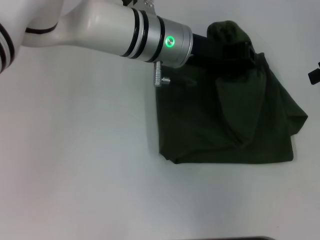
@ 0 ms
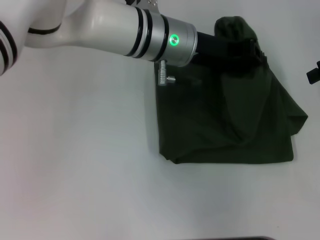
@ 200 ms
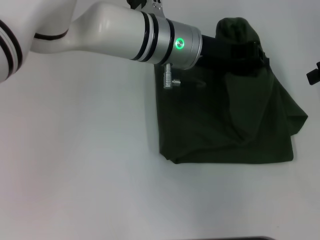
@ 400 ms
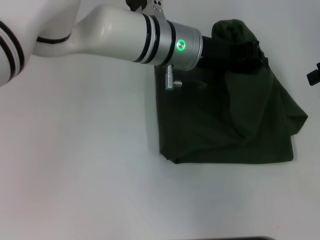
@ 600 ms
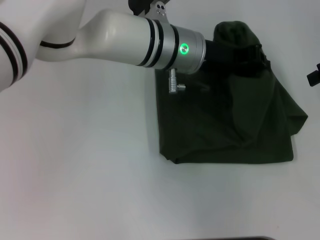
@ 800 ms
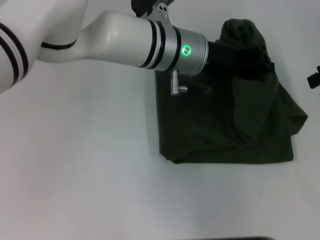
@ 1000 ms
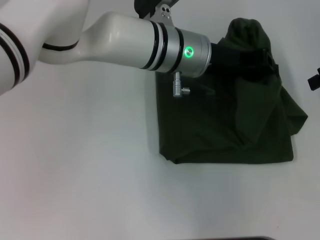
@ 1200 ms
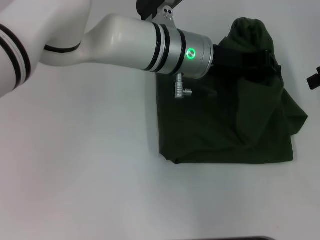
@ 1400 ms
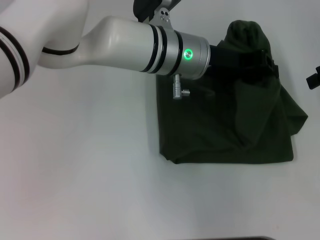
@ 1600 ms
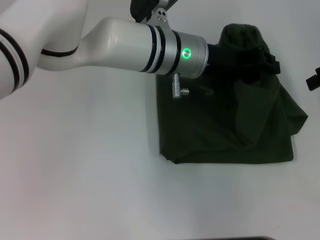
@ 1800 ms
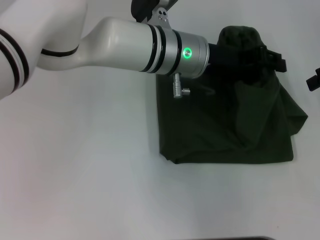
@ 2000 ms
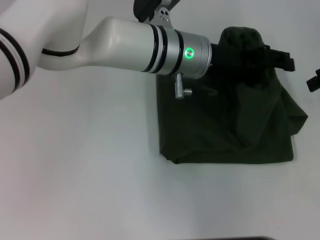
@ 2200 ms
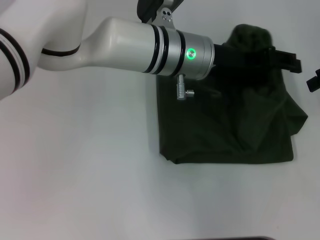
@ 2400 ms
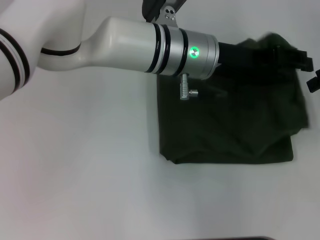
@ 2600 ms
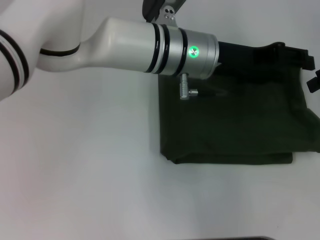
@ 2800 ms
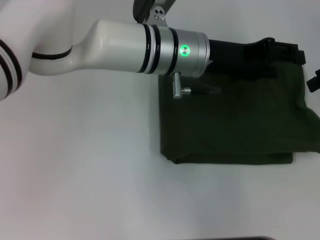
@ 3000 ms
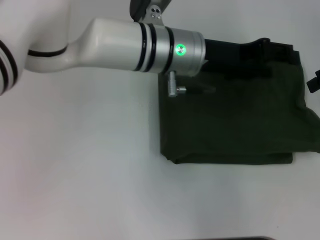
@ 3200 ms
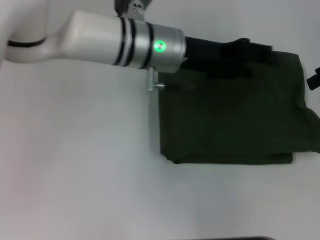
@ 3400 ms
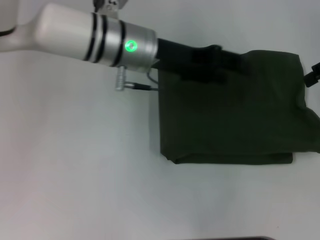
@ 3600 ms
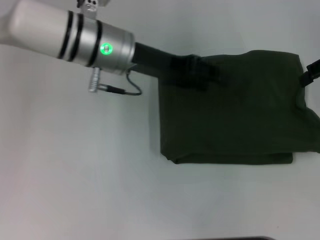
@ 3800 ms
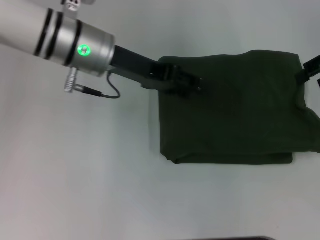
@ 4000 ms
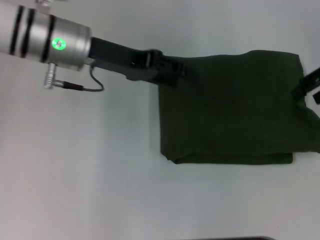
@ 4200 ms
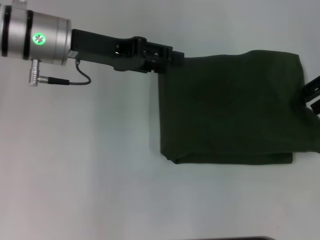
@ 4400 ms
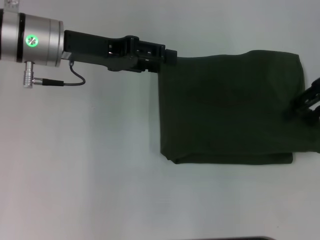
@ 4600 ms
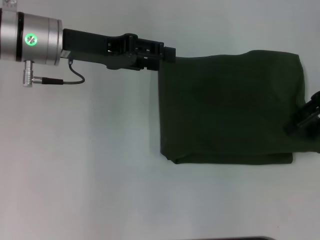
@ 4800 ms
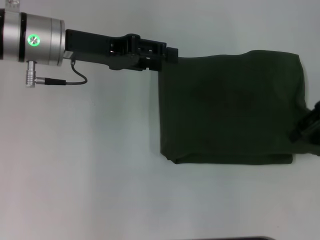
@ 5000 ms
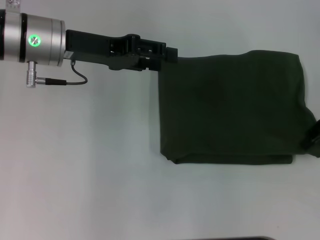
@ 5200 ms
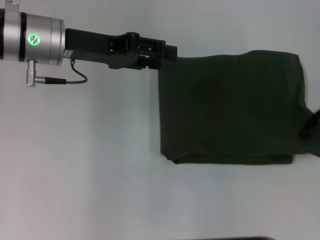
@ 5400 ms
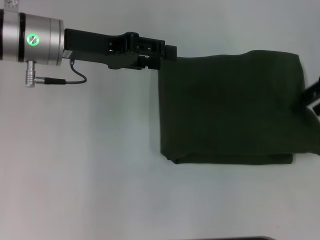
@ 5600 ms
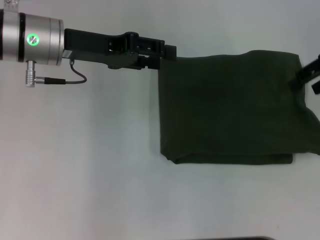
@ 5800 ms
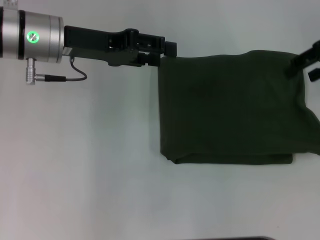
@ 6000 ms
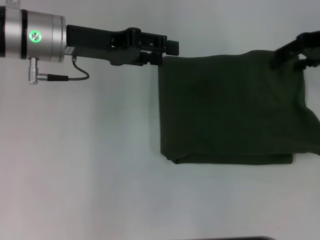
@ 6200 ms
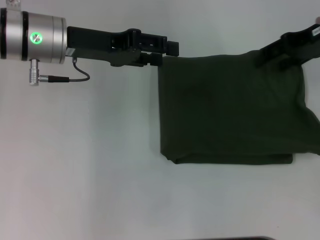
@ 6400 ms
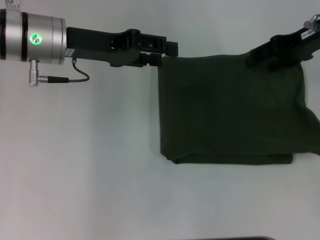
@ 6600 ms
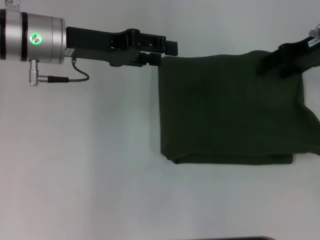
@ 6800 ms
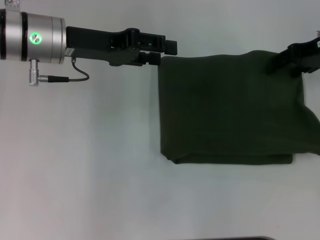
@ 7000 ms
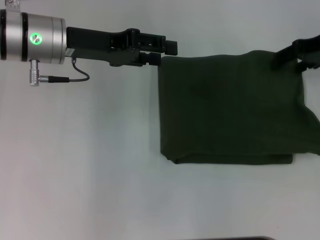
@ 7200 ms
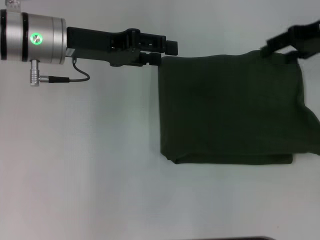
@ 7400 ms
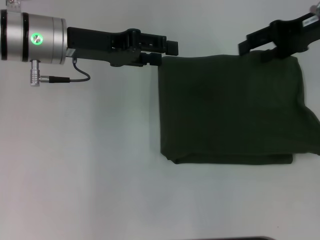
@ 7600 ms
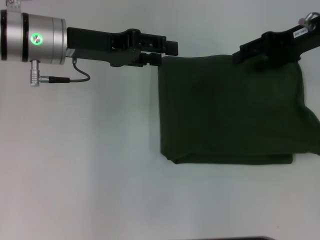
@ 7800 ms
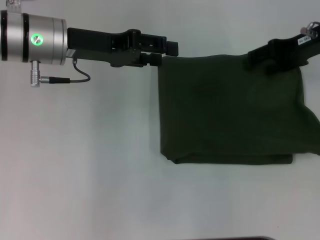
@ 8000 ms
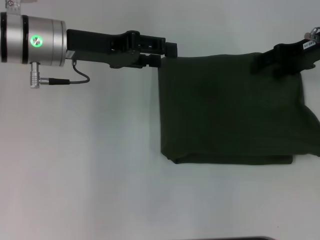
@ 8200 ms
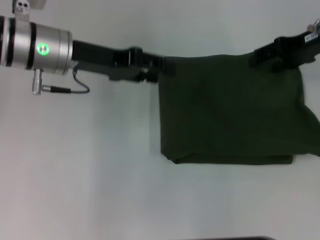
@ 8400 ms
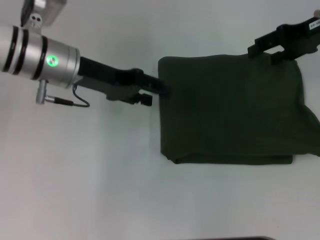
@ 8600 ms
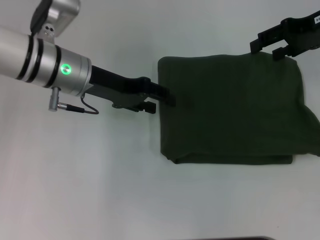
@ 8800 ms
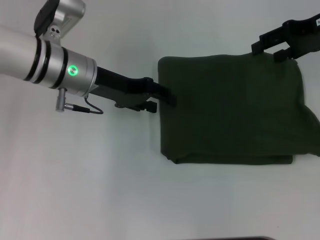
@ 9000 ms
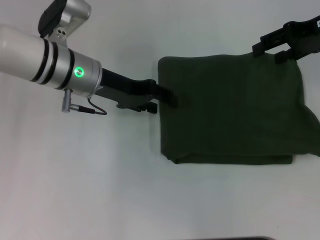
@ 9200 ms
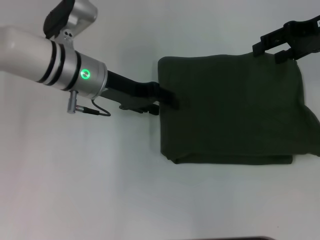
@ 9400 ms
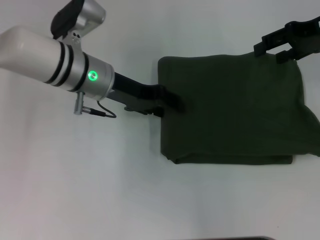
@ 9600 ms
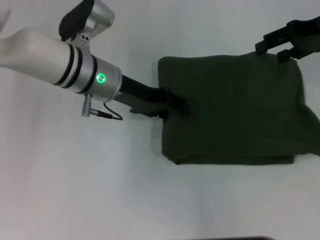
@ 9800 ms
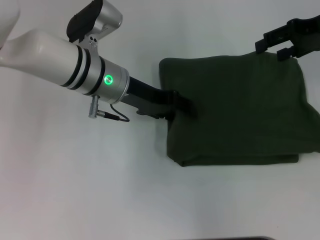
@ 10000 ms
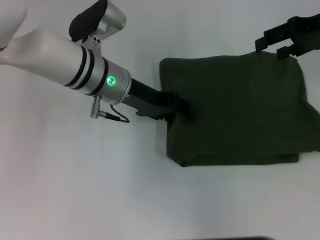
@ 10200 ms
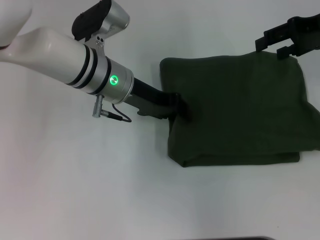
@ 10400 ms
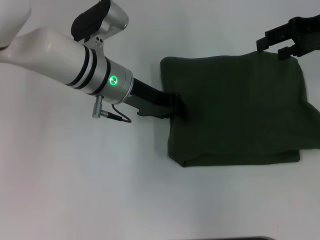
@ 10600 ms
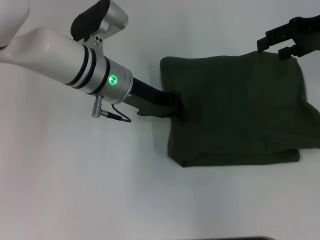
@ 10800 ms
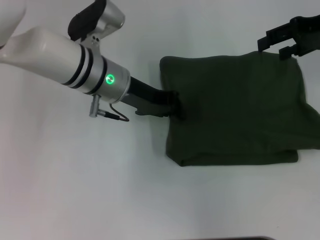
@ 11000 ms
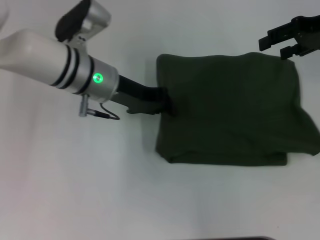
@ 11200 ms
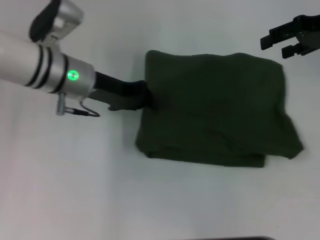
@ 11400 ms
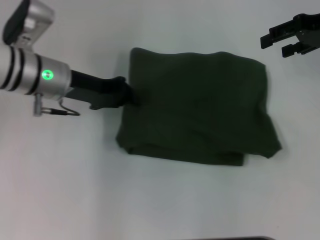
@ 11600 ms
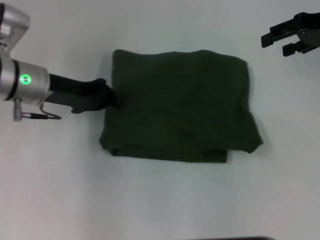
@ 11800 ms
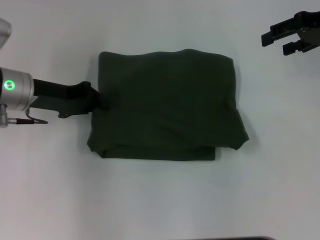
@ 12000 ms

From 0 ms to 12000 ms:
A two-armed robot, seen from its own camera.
Step, from 0 ms to 3000 ms: Fold the clothes with your left hand.
From 0 ms to 1600 ms: The grippers stay close to where they were, moving slightly.
From 1600 ms to 3000 ms: The left gripper opens its fingers.
From 3000 ms to 4400 ms: The left gripper heads to the left, covering approximately 15 cm.
From 4400 ms to 6000 ms: The grippers stay close to where they were, moving slightly.
From 6000 ms to 7600 ms: The grippers stay close to where they were, moving slightly.
From 7600 ms to 9000 ms: The left gripper moves roughly 5 cm.
From 9000 ms to 10400 ms: The left gripper moves to the right, about 5 cm.
From 10400 ms to 12000 ms: The left gripper travels to the left by about 15 cm, and closes its fingers.

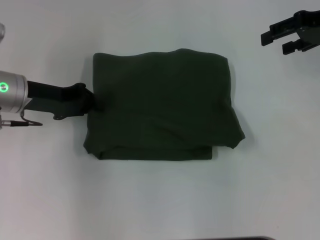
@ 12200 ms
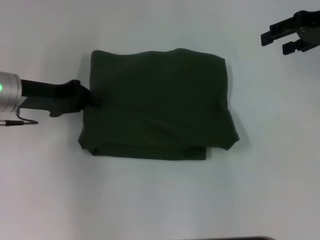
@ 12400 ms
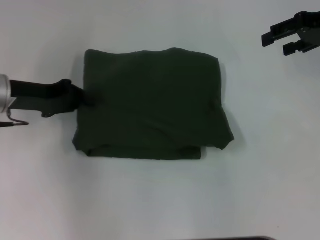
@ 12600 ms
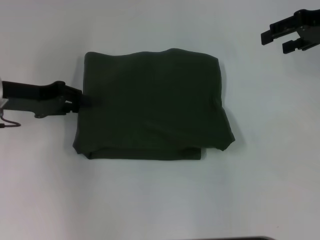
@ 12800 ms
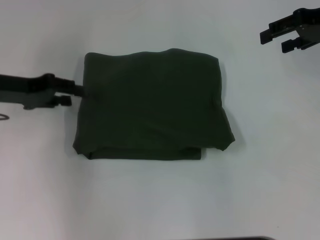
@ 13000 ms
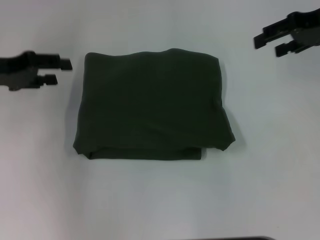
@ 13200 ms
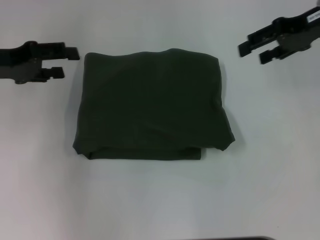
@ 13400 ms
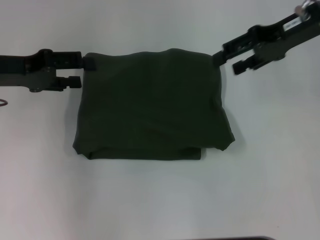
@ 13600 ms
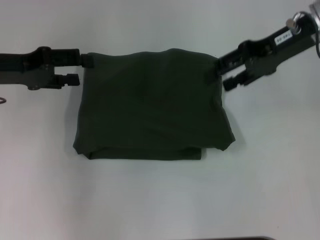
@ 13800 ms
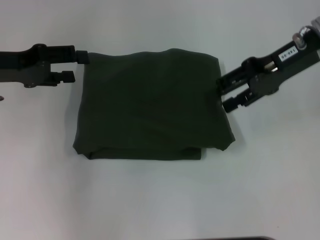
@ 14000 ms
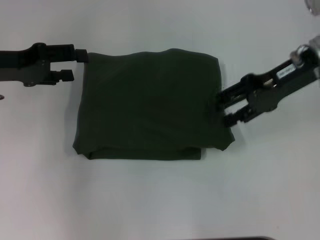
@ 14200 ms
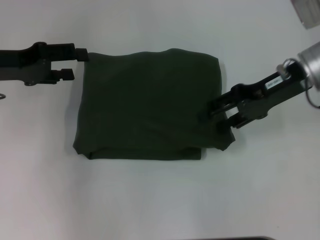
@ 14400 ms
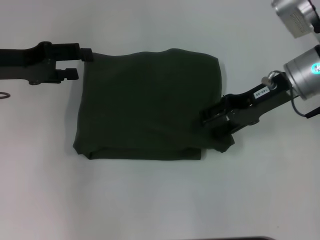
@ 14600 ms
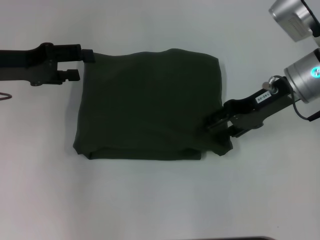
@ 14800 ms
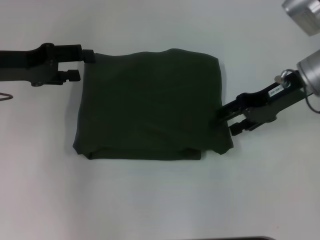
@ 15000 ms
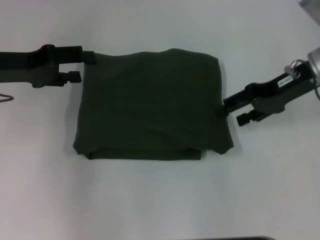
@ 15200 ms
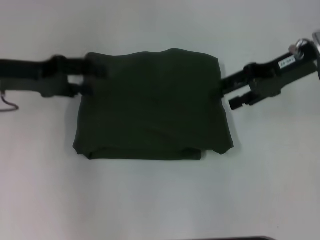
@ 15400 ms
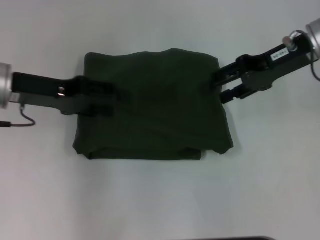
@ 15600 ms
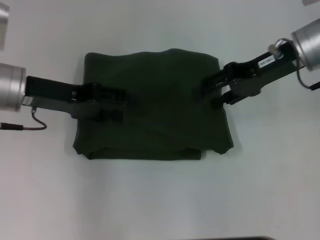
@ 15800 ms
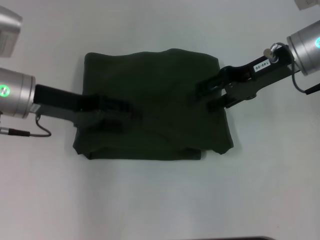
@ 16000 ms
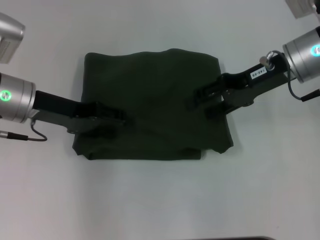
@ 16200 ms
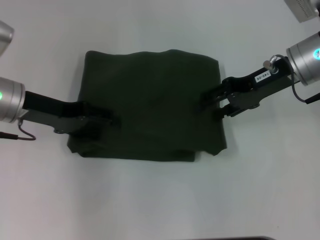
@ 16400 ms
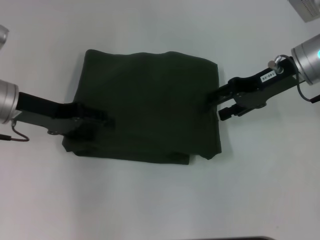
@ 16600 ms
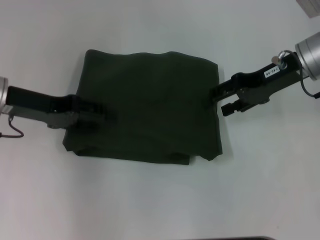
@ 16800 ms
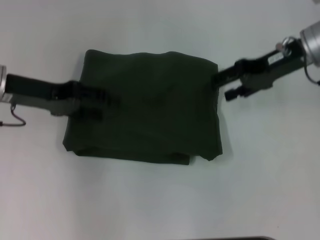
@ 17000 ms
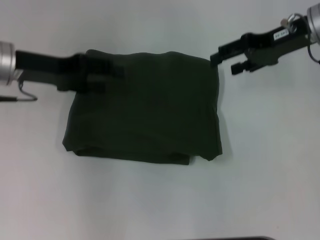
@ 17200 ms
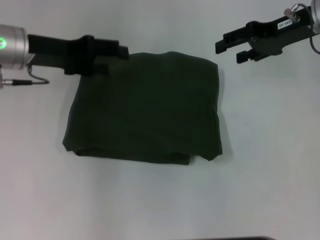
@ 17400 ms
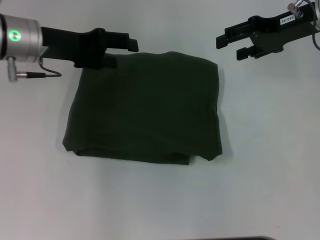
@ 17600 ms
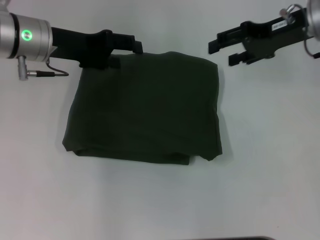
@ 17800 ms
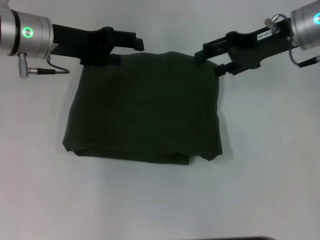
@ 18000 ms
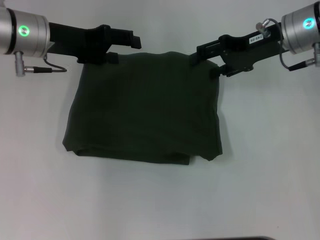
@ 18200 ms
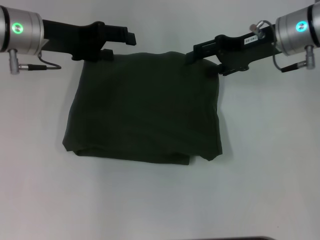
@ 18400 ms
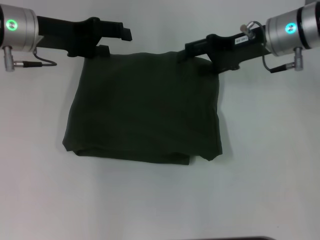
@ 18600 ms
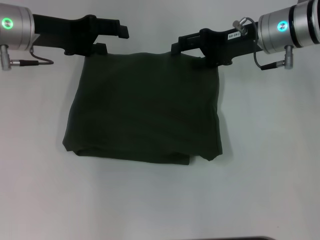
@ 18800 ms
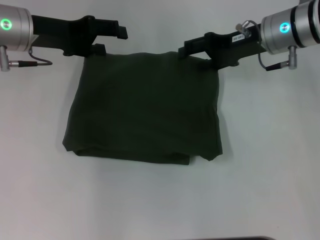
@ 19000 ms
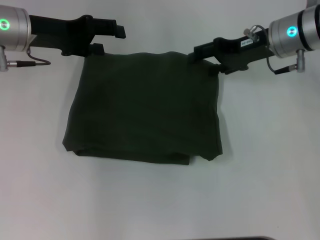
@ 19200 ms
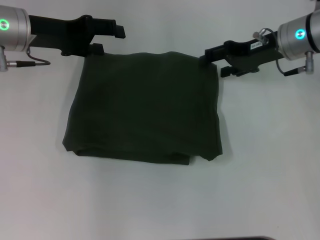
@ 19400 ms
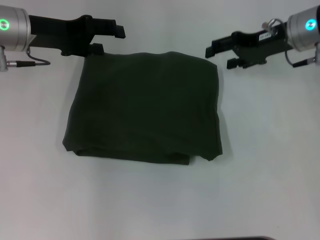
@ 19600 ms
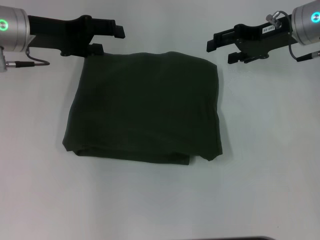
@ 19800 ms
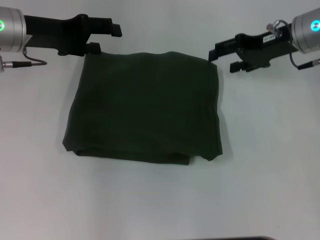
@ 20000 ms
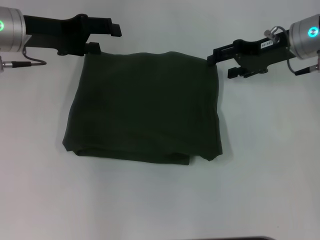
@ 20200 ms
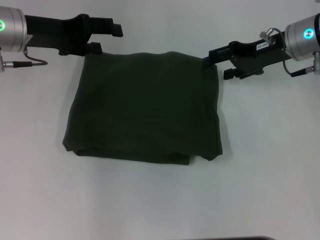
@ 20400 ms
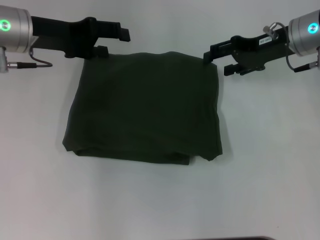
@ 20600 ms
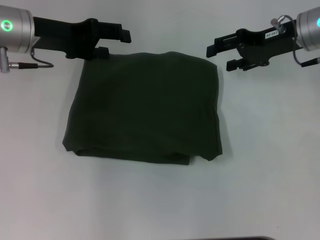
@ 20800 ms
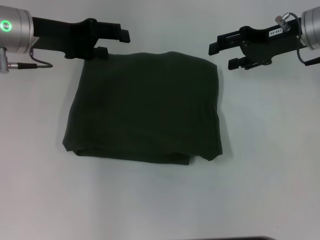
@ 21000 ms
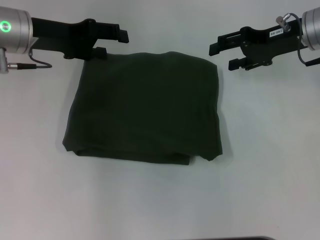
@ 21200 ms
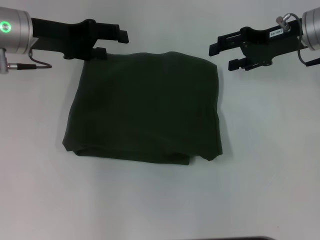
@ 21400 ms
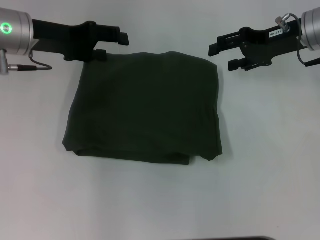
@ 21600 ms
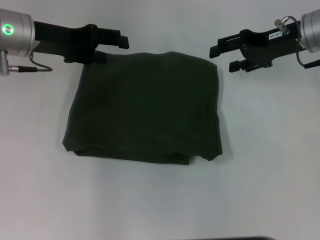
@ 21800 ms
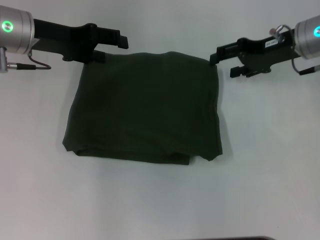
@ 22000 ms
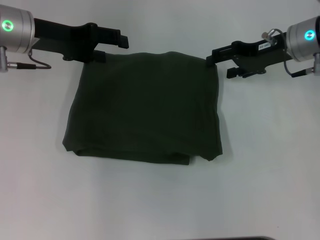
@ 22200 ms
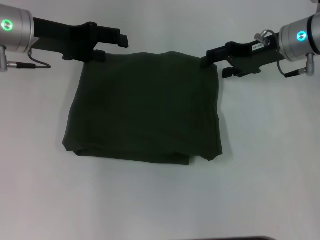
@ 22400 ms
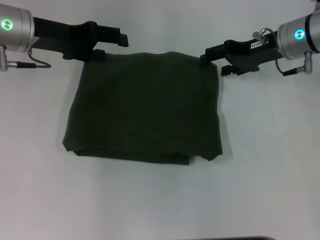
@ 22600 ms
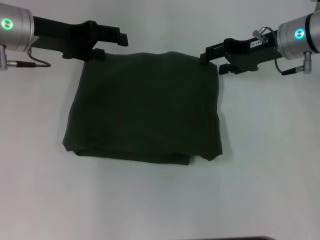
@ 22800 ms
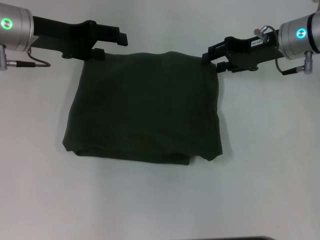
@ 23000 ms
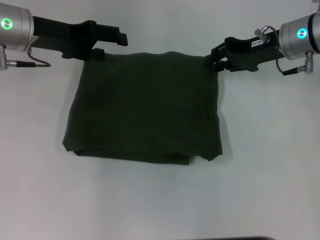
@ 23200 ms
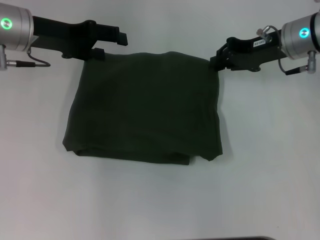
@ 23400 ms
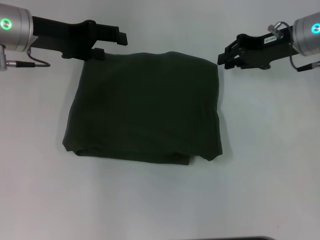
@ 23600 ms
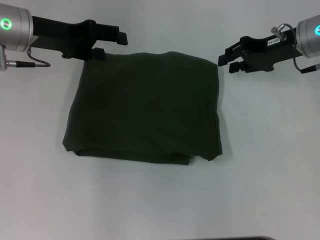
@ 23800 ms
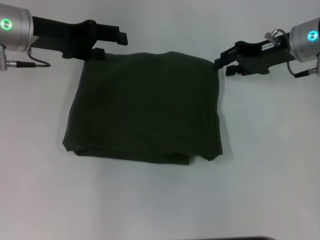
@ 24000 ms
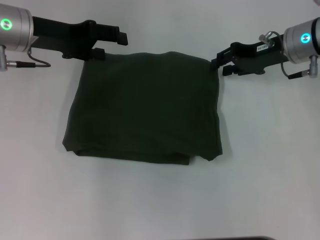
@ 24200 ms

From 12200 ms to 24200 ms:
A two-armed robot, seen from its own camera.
From 12200 ms to 13800 ms: The left gripper goes roughly 5 cm upward, and opens, while the right gripper travels to the left by some 10 cm.
From 13800 ms to 15200 ms: The right gripper is displaced downward by some 5 cm.
From 16600 ms to 18200 ms: The left gripper shifts about 5 cm forward.
From 18200 ms to 22600 ms: The grippers stay close to where they were, moving slightly.
From 22600 ms to 24200 ms: The right gripper closes.
